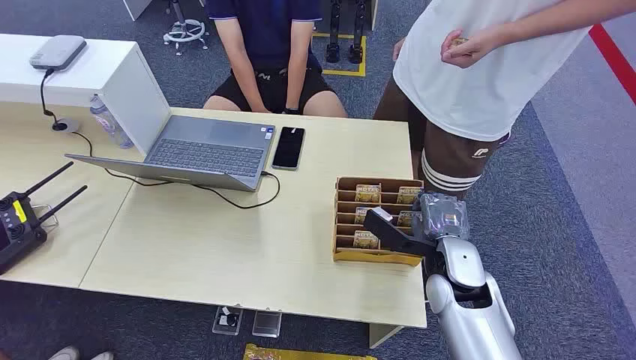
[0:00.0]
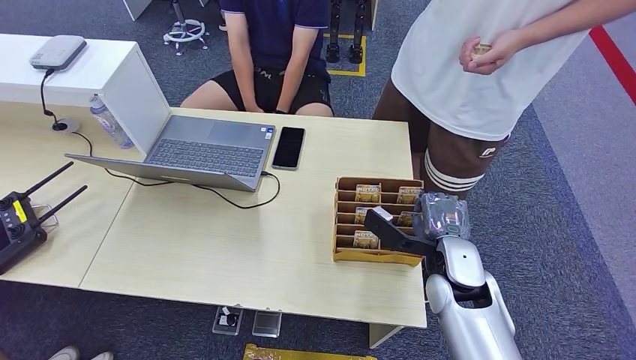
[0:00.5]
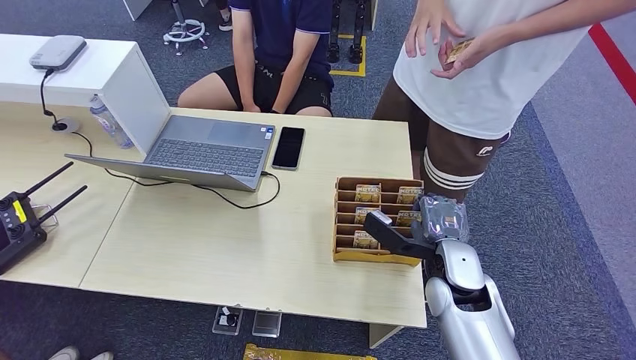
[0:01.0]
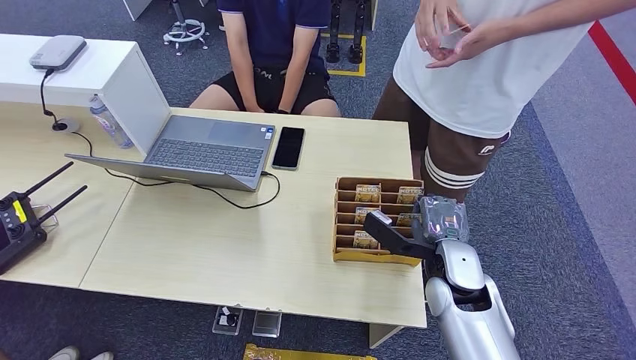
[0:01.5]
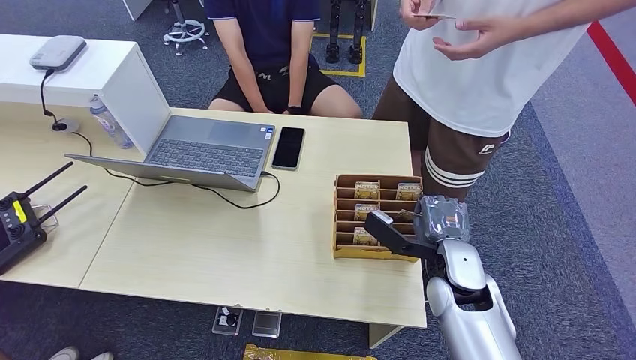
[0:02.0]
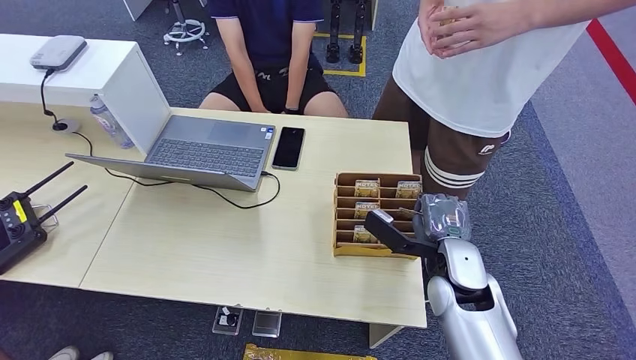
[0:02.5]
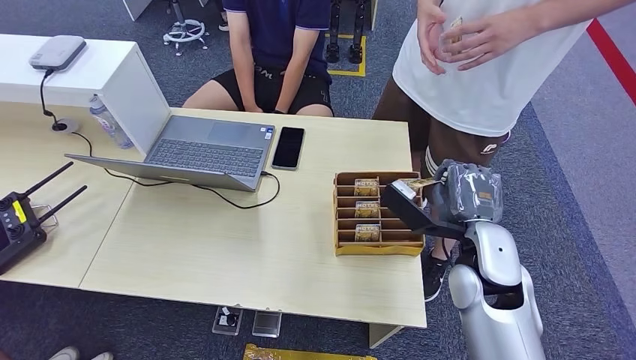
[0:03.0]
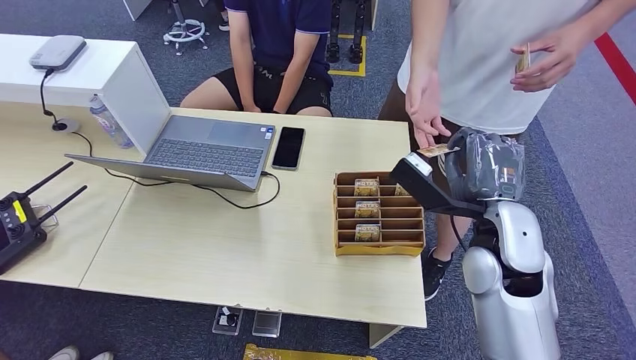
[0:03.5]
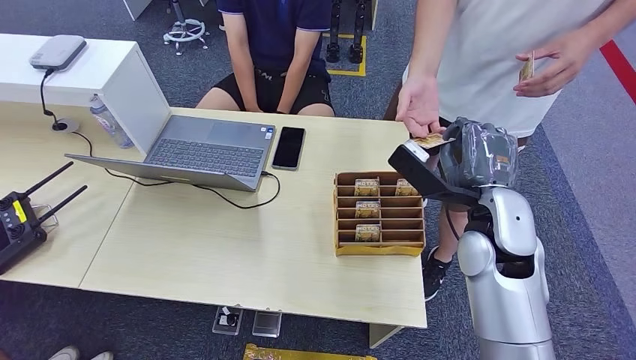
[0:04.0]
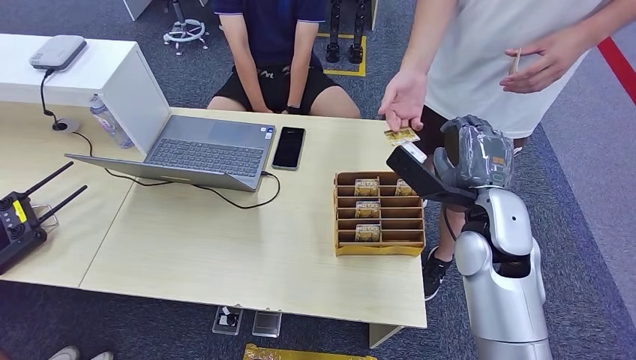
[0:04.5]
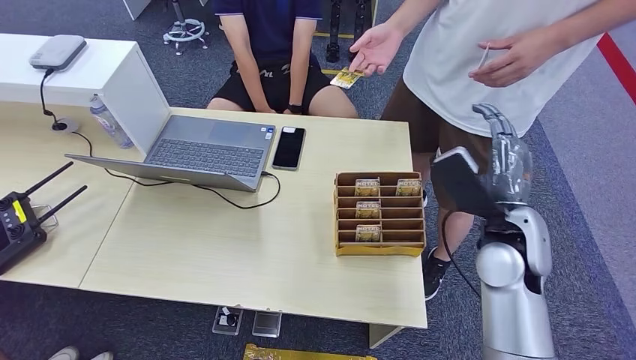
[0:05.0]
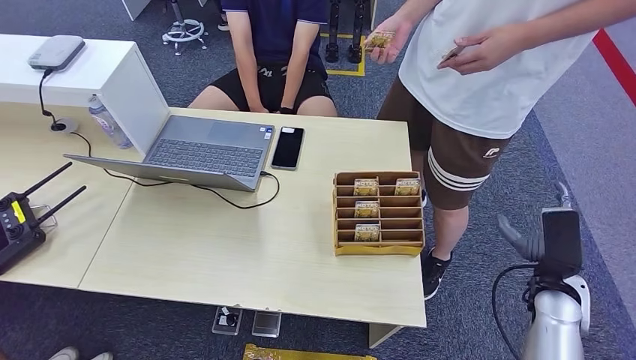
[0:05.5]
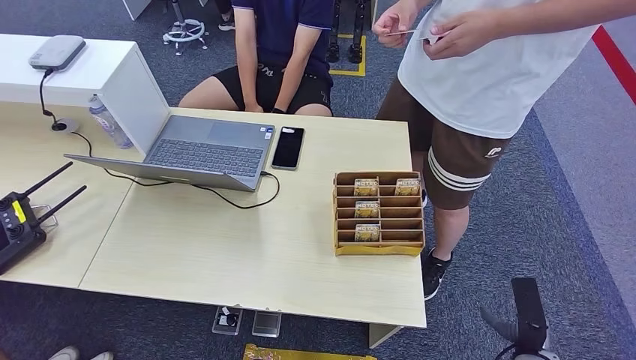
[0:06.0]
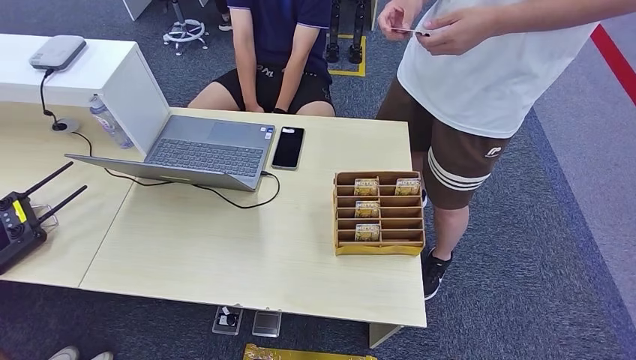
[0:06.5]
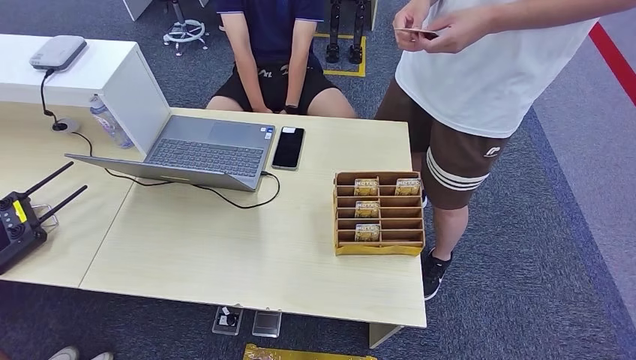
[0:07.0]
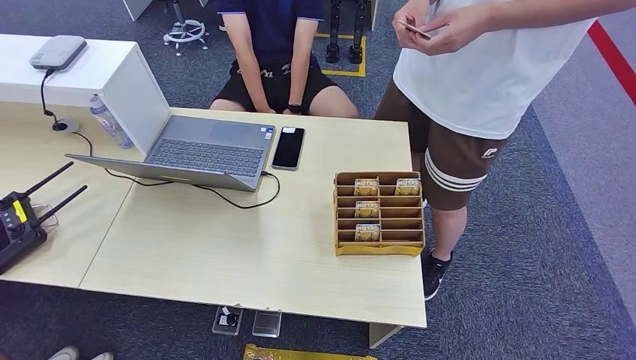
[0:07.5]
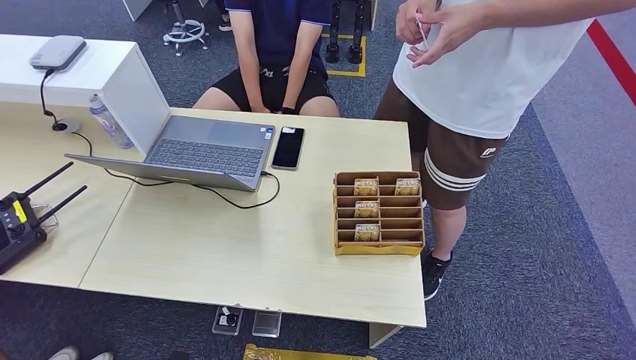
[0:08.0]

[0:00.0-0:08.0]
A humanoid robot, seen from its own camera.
Step, 0:00.0 to 0:03.0: Pick up the key card from the card box.
Step, 0:03.5 to 0:08.0: Hand the key card to the target.
0:04.0 to 0:06.0: The right hand heads downward, to the right and backward, covering about 35 cm.
0:06.0 to 0:08.0: The right hand travels backward, to the left and downward by about 20 cm.

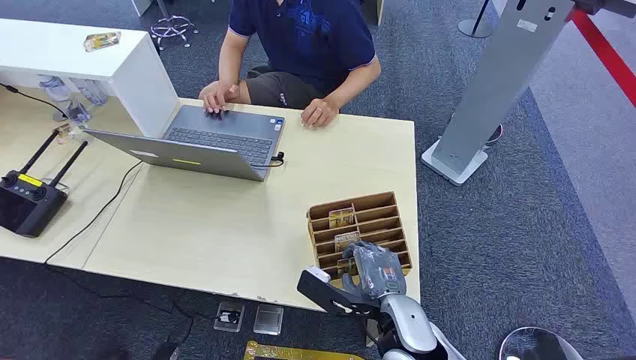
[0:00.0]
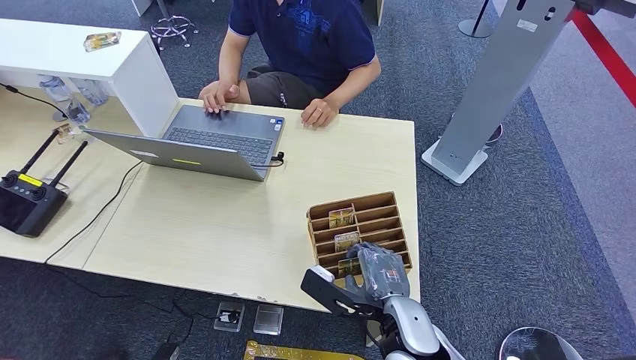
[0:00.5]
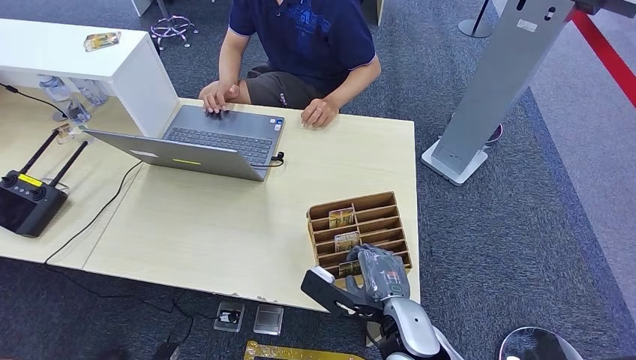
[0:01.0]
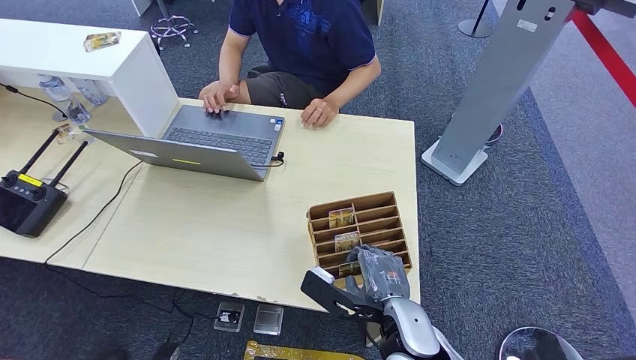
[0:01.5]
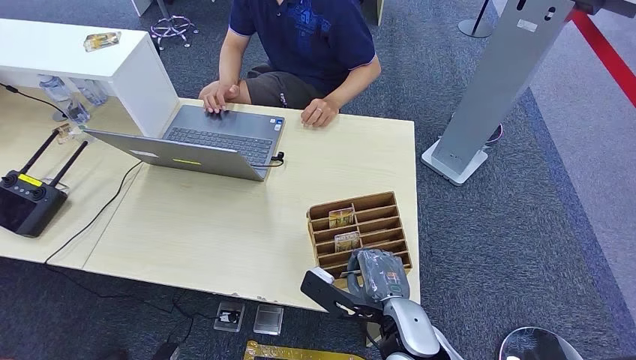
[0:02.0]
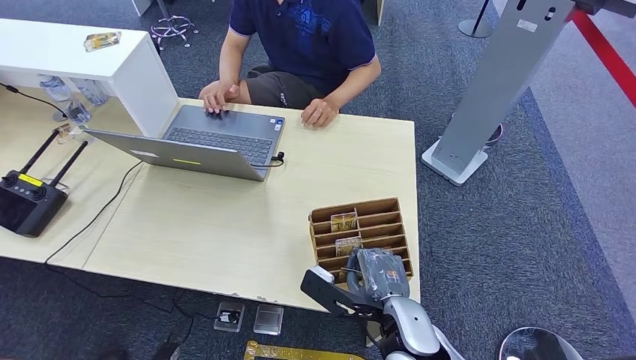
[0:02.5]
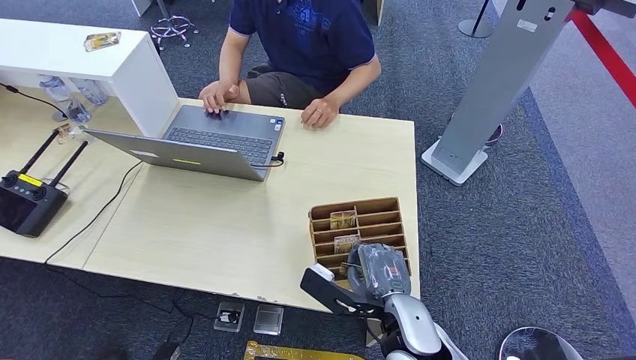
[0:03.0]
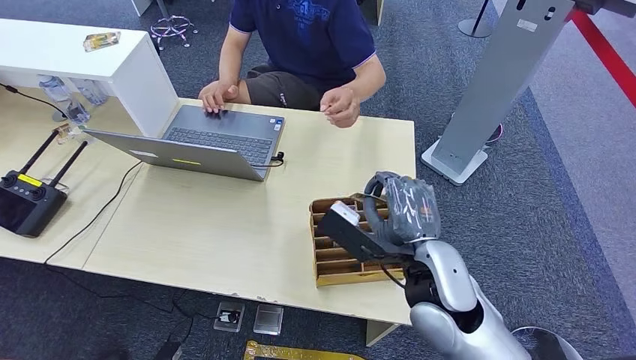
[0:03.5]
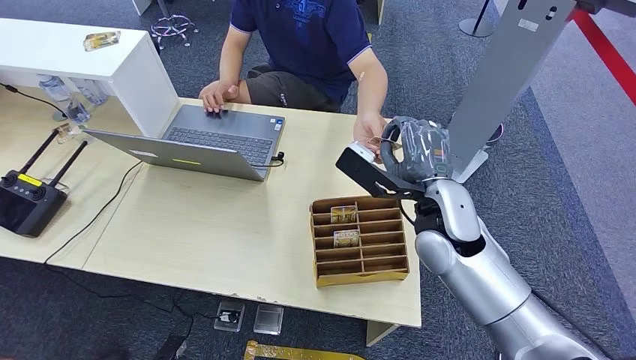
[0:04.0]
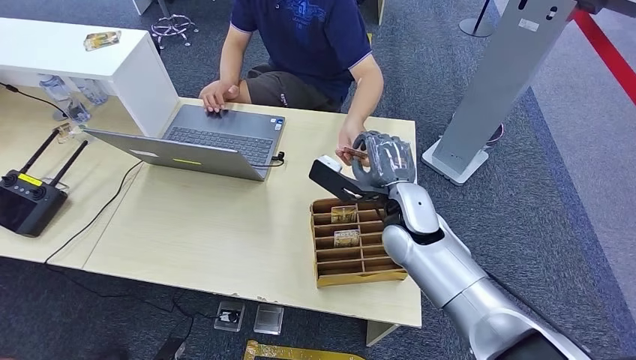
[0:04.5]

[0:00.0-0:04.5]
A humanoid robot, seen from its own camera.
Step, 0:00.0 to 0:03.0: Pick up the key card from the card box.
Step, 0:04.0 to 0:04.5: Hand the key card to the target.
0:02.0 to 0:04.5: The right hand moves forward and upward, roughly 20 cm.
